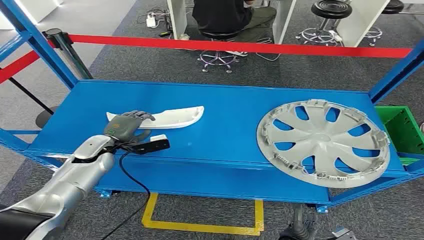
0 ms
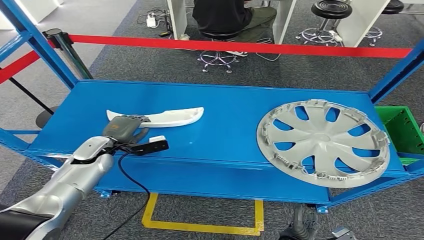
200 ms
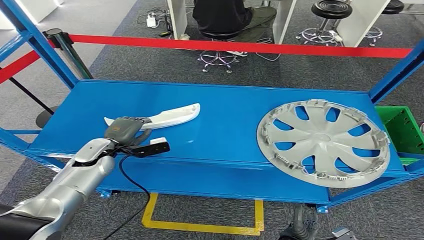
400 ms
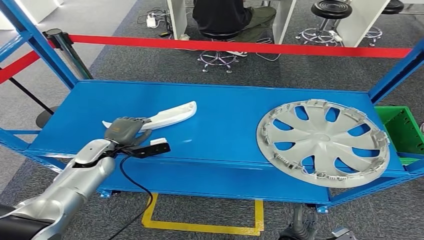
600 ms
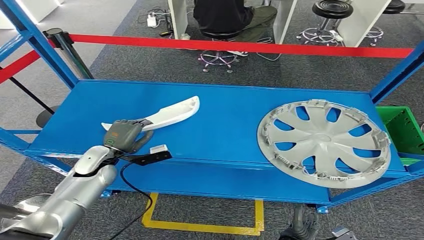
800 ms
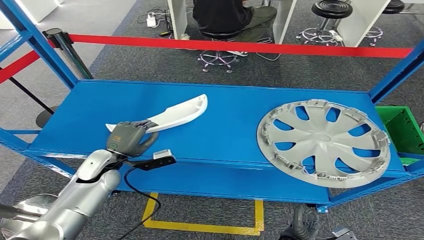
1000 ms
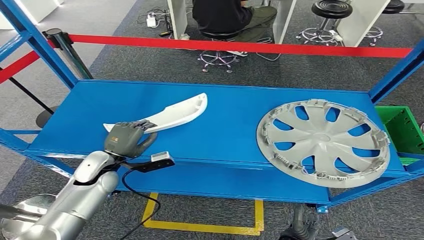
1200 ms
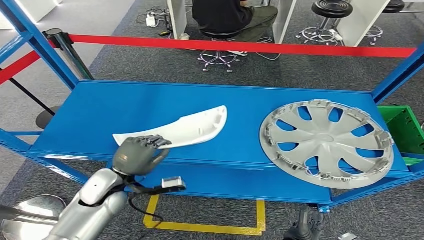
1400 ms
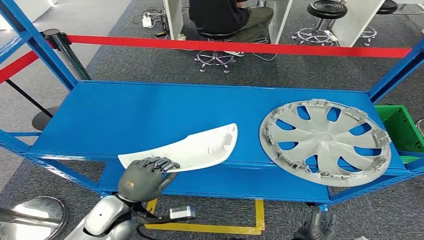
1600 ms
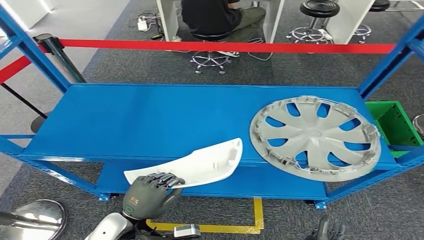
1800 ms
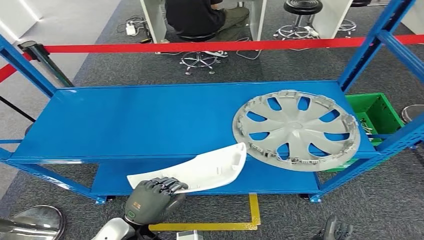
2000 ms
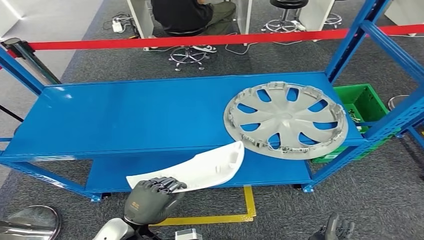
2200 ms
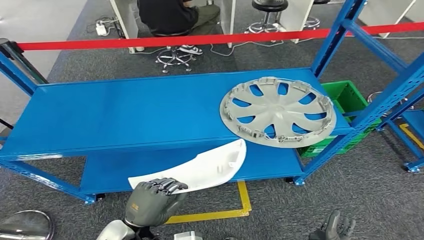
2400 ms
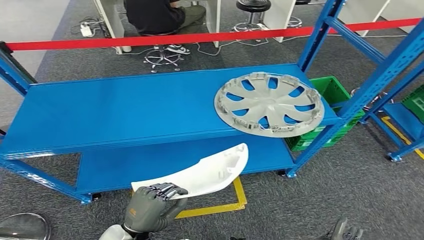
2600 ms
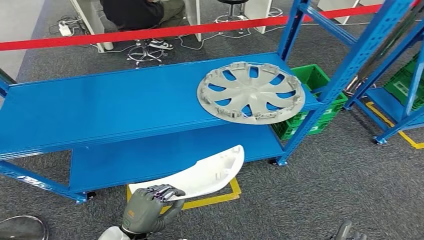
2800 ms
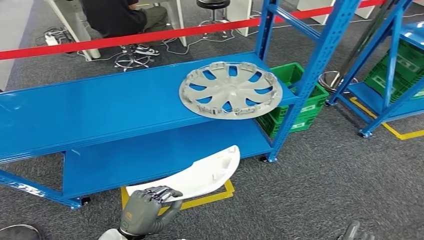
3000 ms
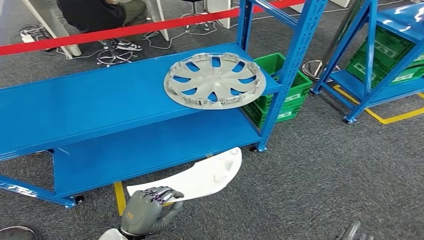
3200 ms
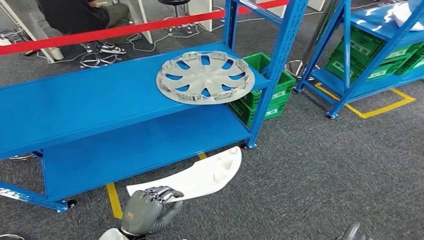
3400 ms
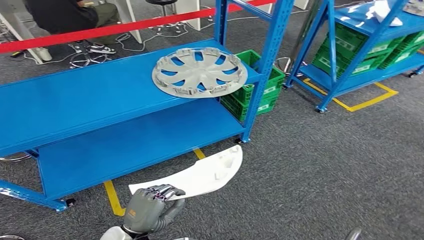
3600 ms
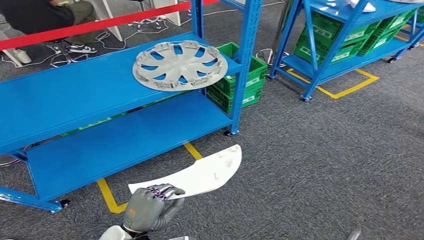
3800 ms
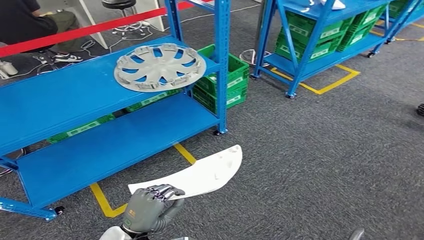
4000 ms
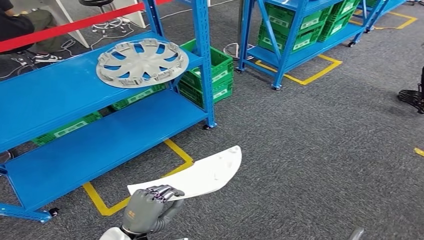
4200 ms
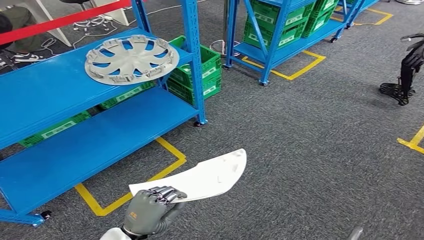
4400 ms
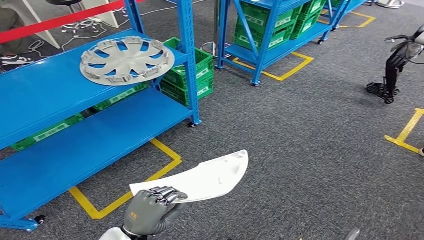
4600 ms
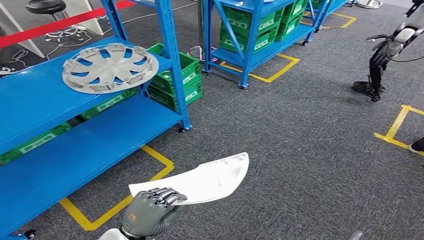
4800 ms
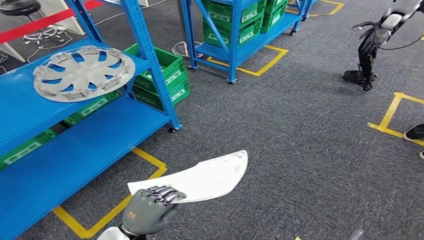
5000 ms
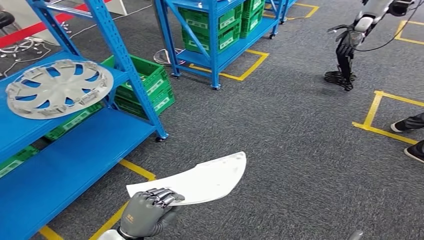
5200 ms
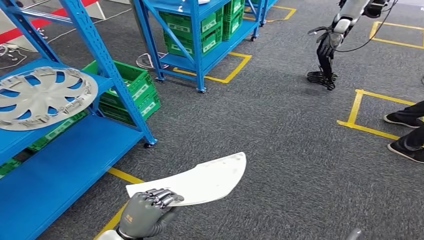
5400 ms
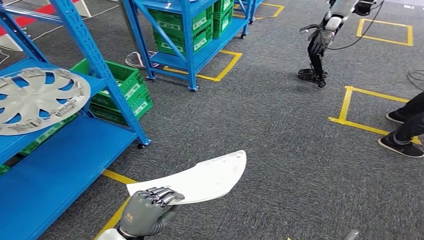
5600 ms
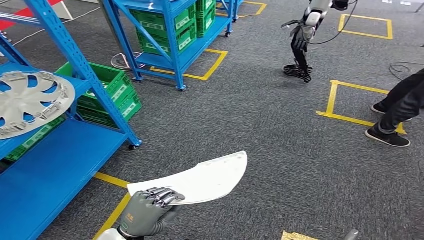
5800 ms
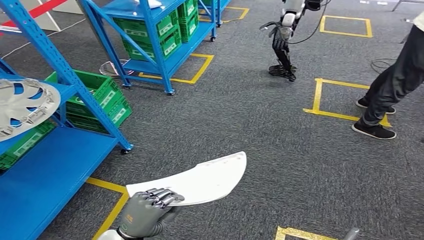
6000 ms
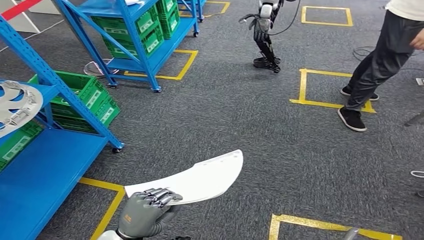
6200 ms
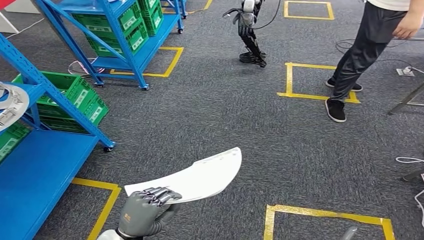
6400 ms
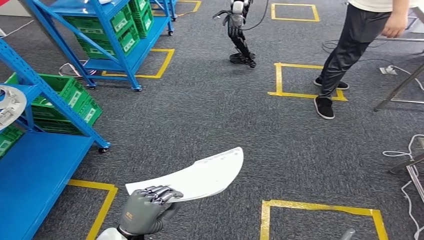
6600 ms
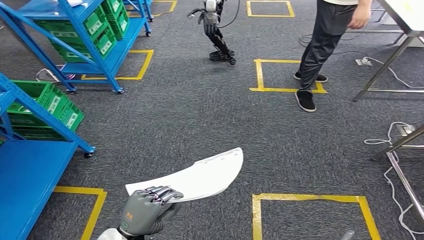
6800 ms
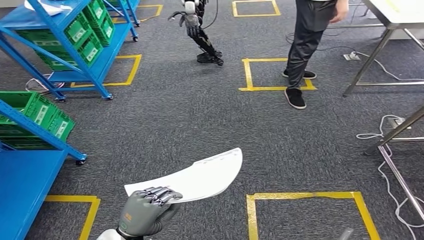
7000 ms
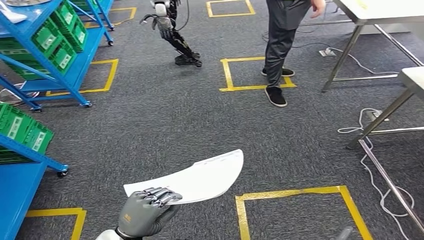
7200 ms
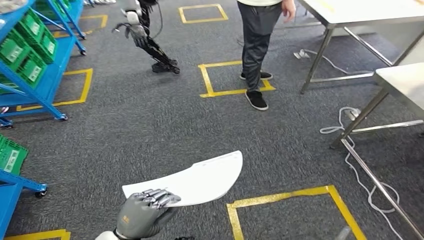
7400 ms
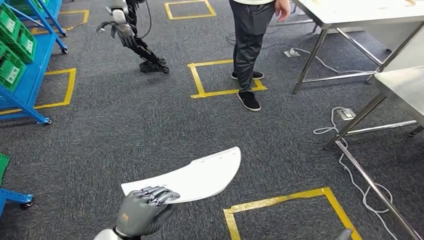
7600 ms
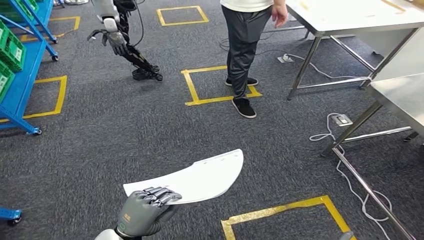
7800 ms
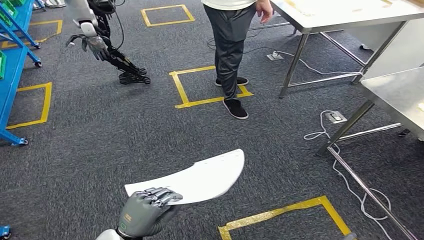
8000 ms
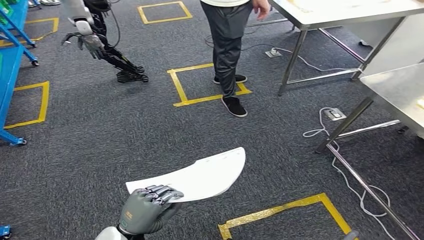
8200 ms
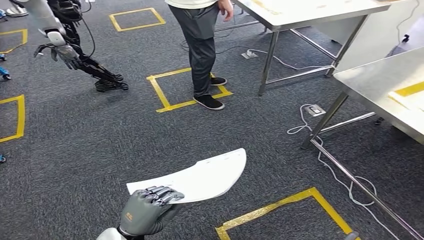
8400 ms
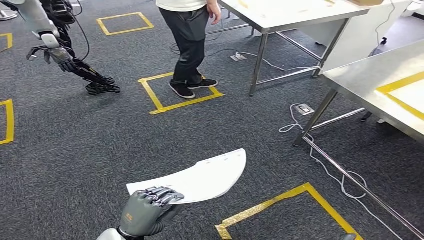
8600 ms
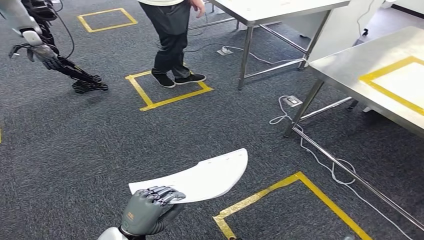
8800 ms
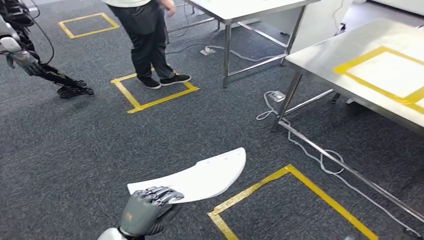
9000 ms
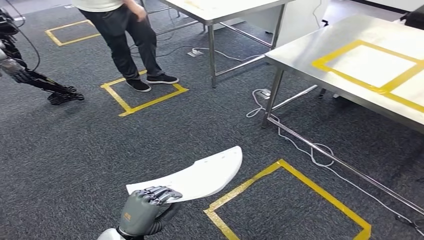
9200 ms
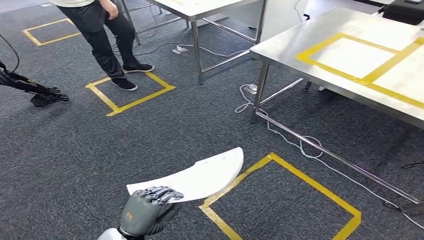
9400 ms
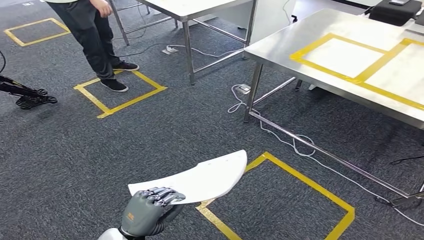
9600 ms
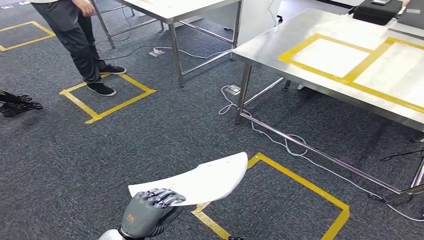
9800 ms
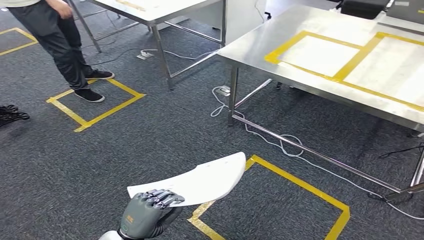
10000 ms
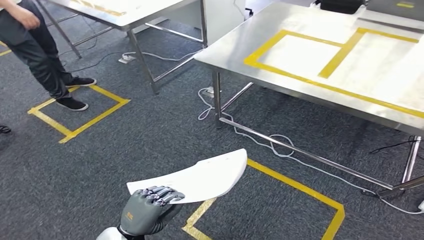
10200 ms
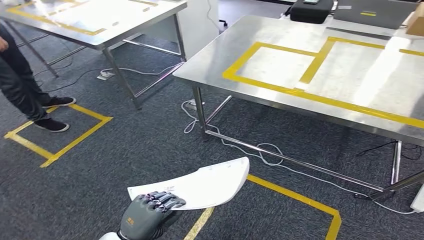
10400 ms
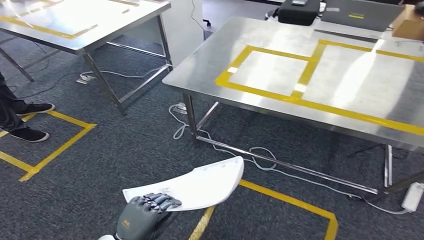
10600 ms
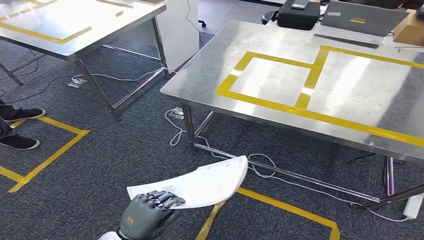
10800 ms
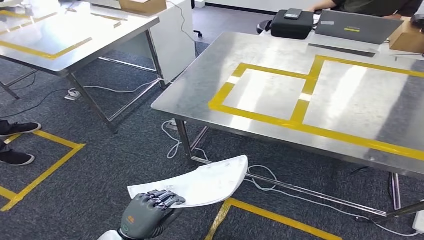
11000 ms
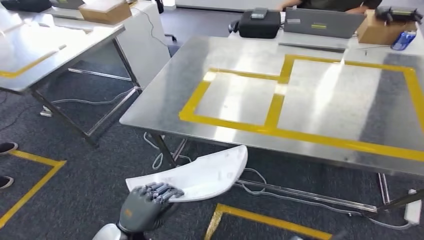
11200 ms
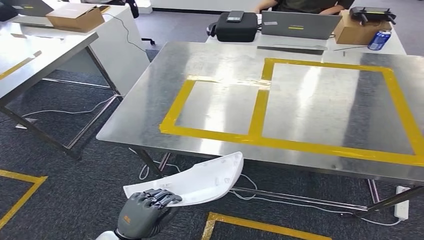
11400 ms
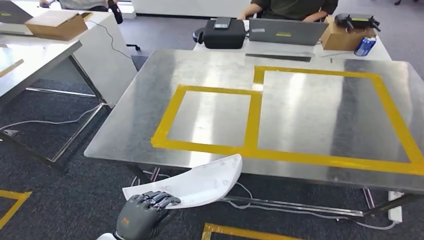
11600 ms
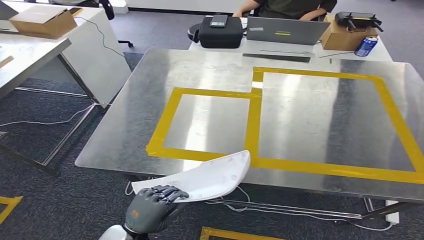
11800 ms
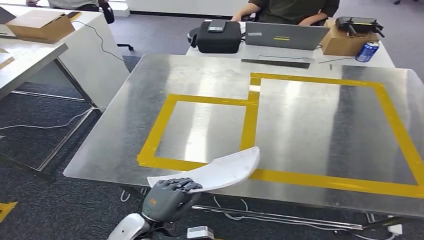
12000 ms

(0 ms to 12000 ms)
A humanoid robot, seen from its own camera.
Step, 0 ms - 2600 ms: Pick up the small component from the shelf.

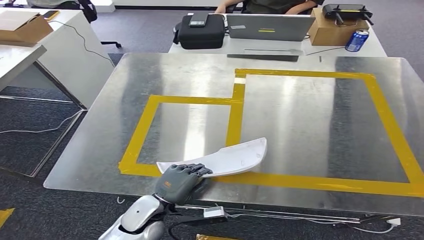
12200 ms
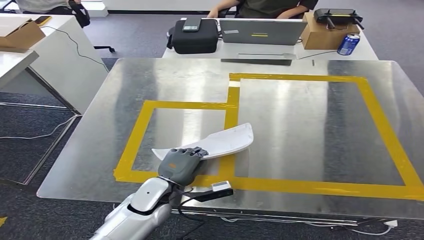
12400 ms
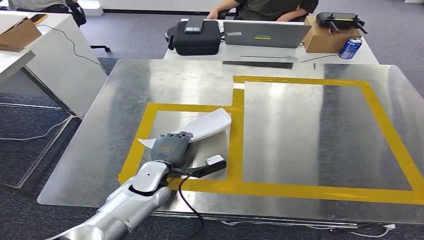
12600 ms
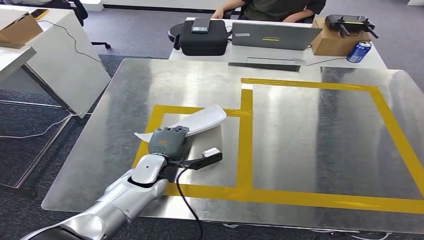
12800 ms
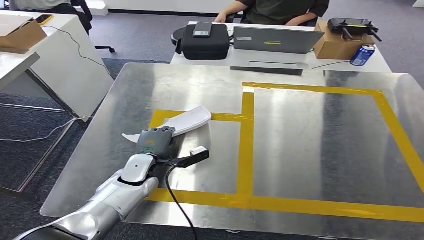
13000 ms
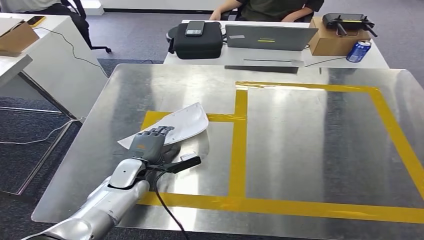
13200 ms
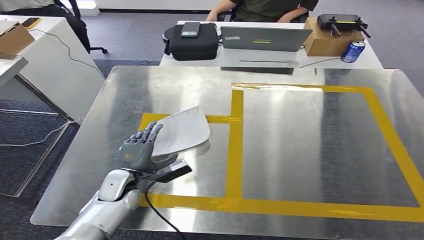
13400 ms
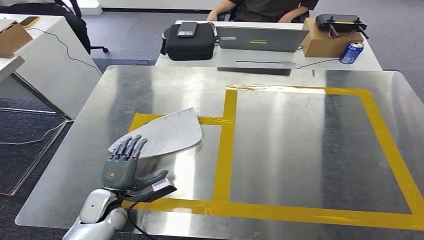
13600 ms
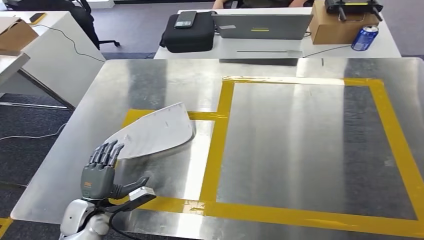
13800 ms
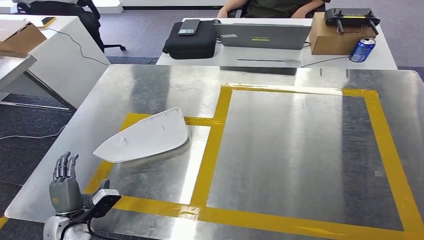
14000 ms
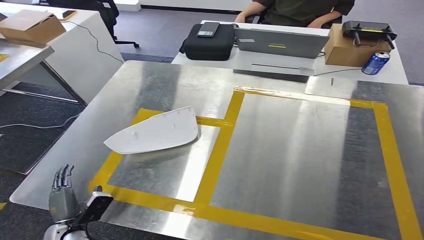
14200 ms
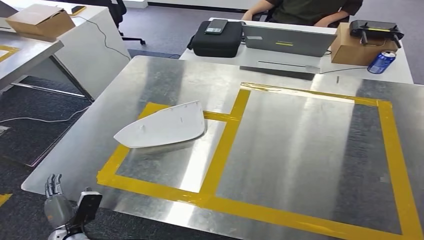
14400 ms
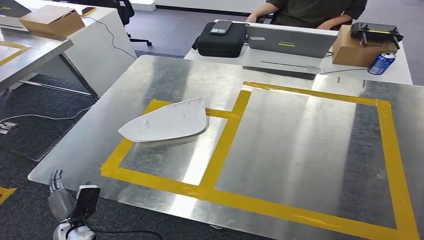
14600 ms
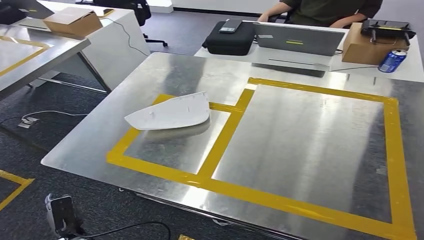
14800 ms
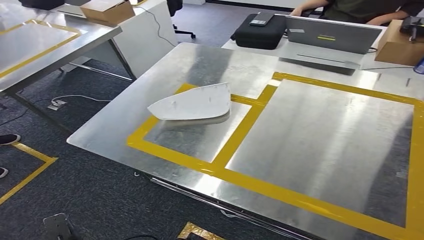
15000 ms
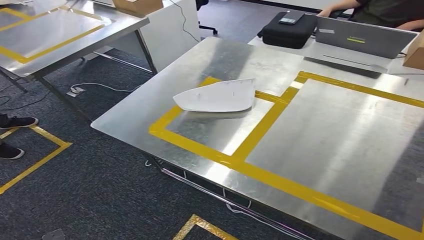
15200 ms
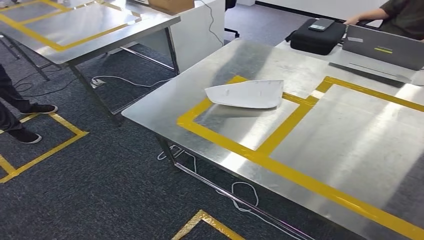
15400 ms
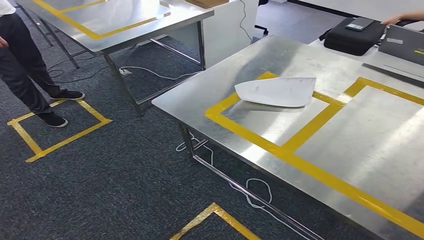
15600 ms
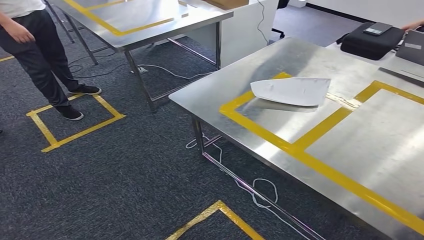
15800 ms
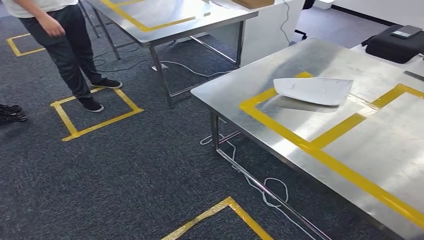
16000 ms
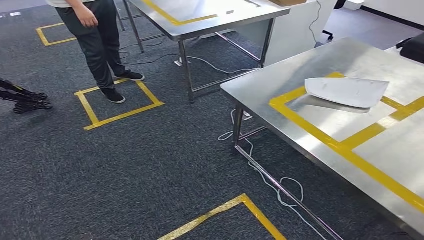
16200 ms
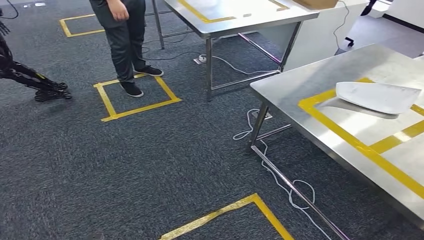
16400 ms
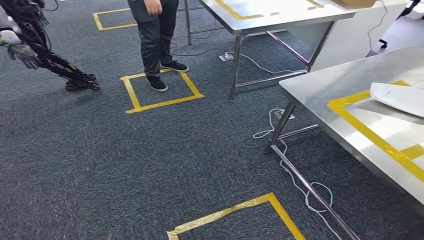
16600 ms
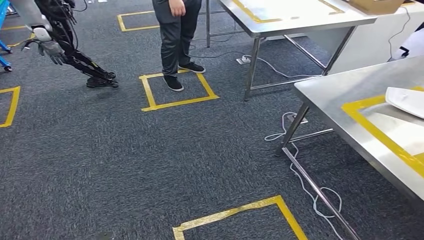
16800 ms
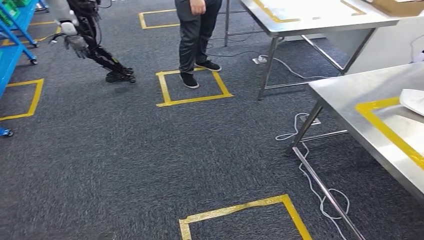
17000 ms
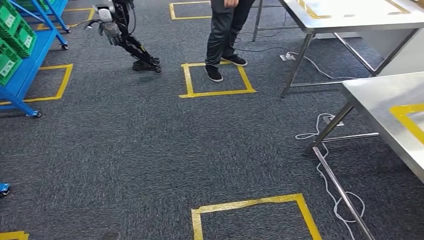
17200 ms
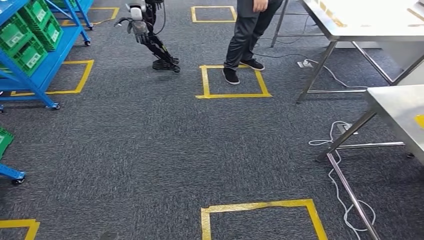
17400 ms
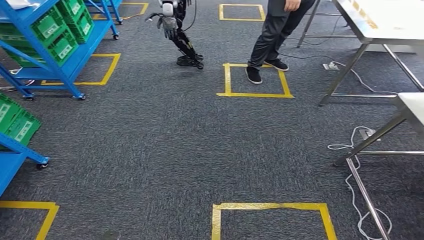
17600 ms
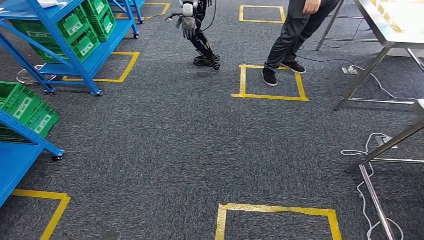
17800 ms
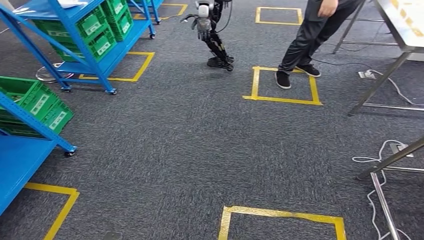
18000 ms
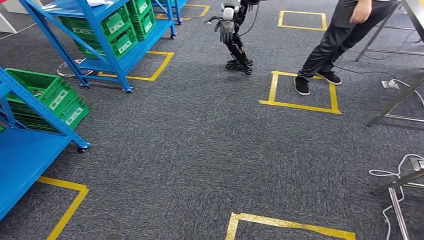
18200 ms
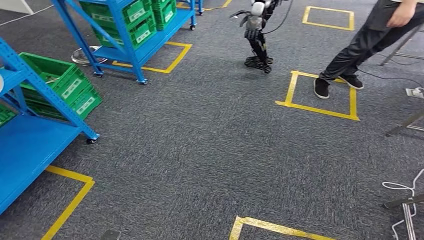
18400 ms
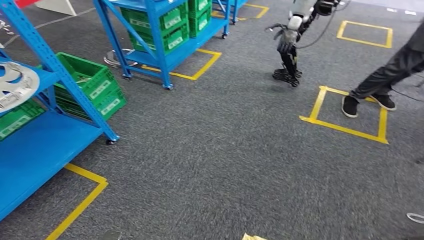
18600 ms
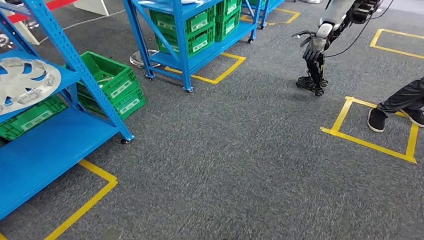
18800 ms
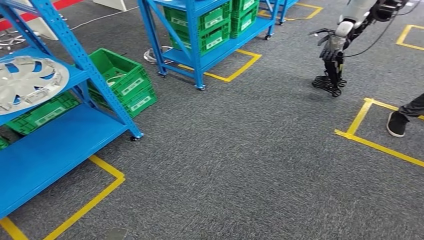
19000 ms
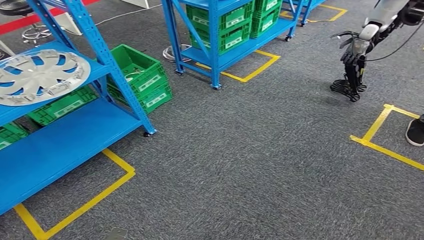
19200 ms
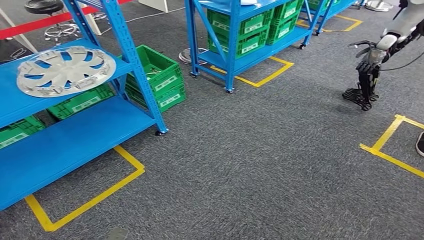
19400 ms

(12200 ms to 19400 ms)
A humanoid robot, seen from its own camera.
Step, 12400 ms - 15200 ms: Insert the small component into the corresponding slot on the workbench.
